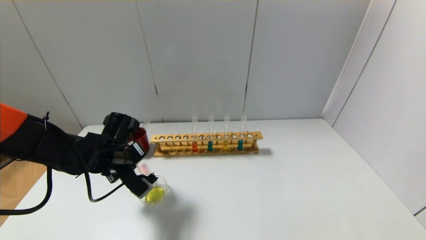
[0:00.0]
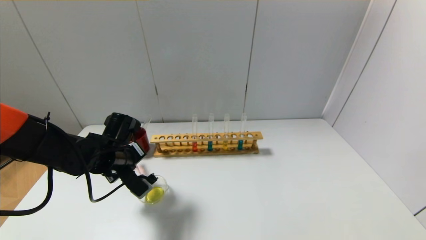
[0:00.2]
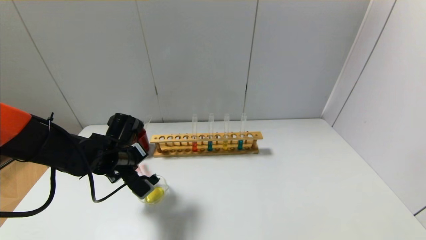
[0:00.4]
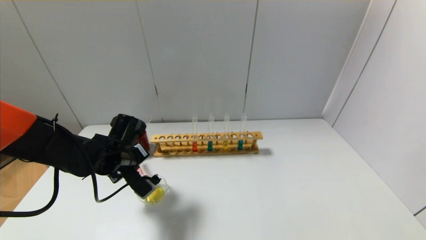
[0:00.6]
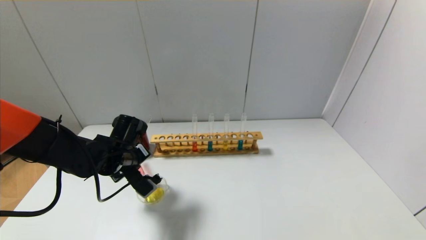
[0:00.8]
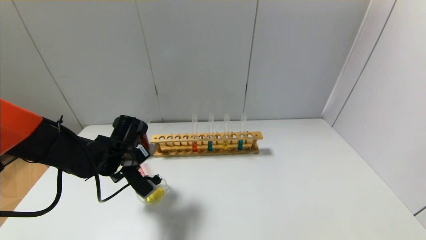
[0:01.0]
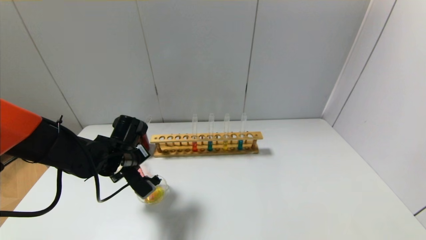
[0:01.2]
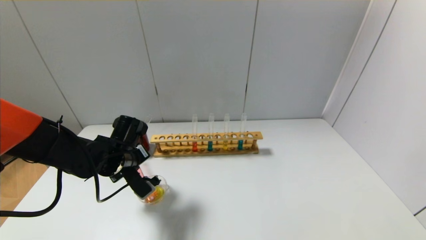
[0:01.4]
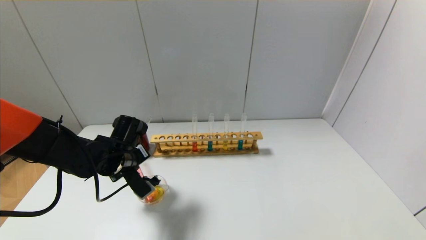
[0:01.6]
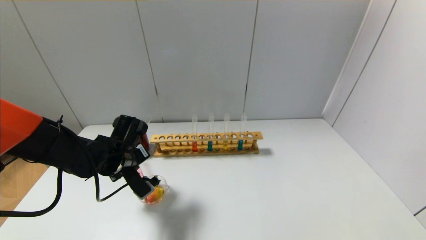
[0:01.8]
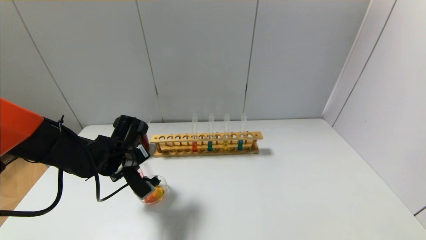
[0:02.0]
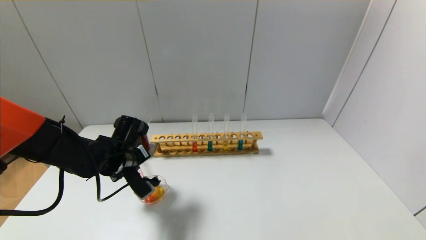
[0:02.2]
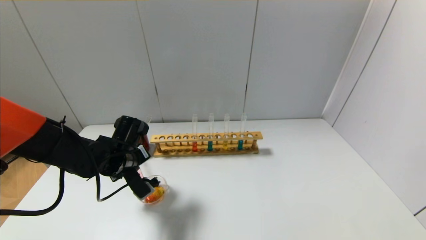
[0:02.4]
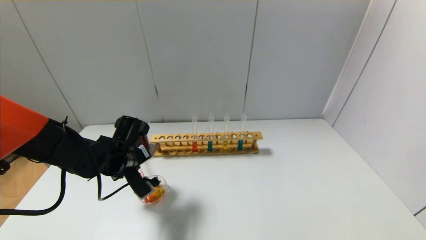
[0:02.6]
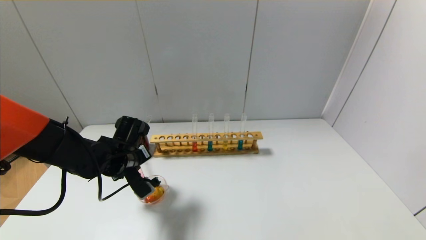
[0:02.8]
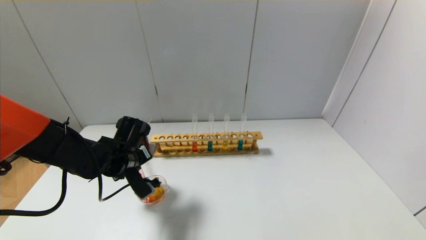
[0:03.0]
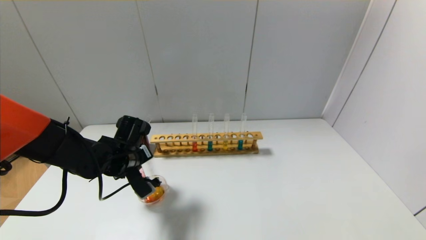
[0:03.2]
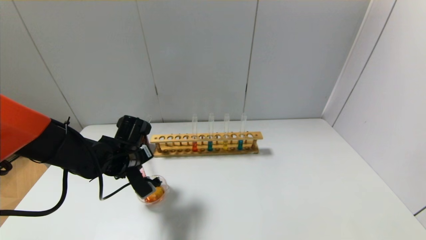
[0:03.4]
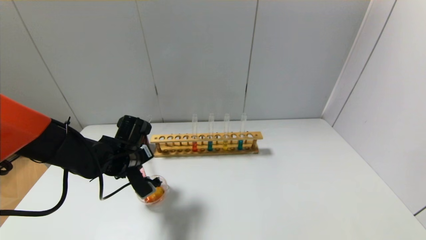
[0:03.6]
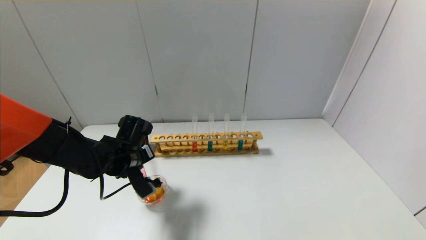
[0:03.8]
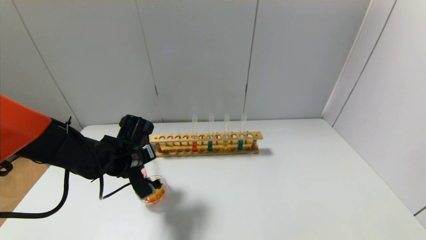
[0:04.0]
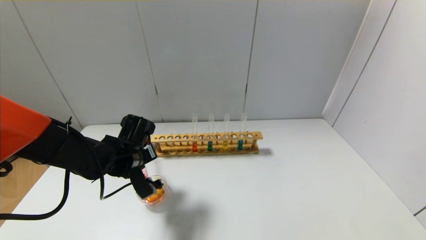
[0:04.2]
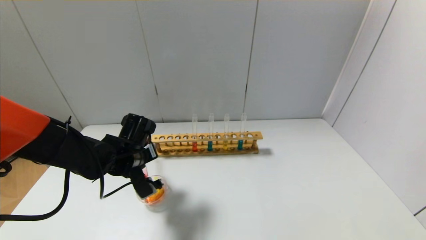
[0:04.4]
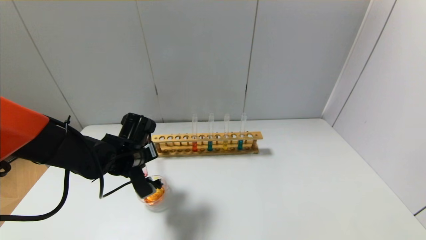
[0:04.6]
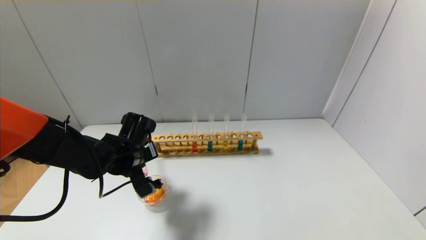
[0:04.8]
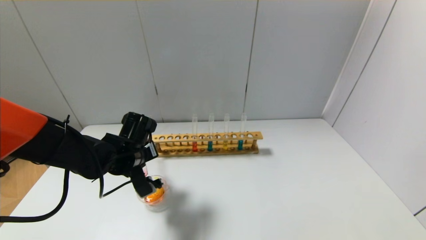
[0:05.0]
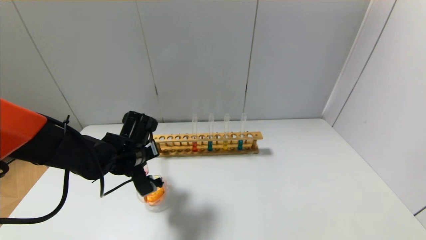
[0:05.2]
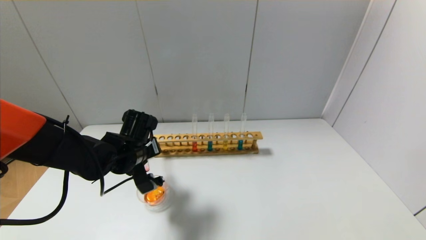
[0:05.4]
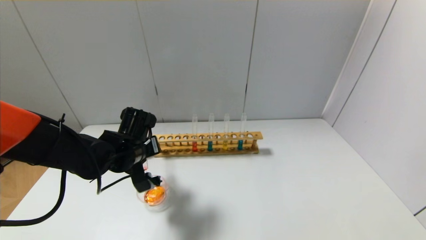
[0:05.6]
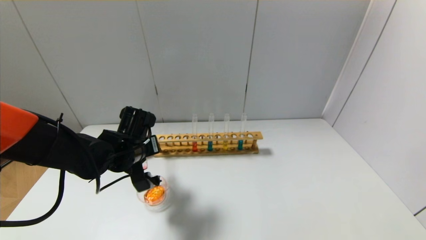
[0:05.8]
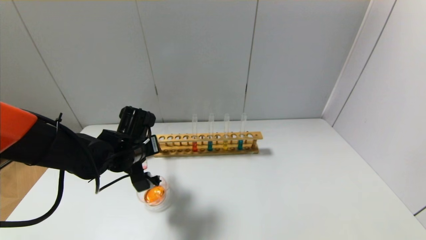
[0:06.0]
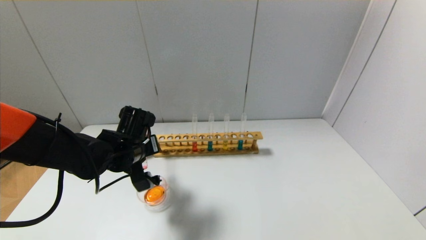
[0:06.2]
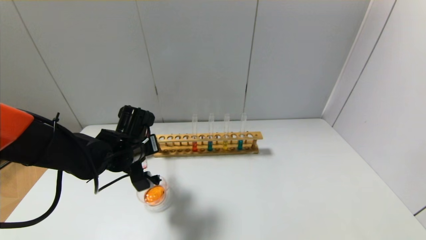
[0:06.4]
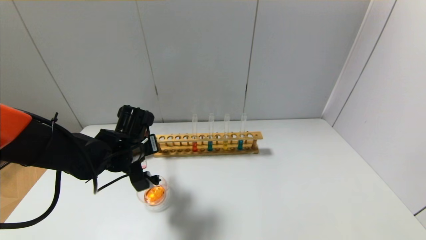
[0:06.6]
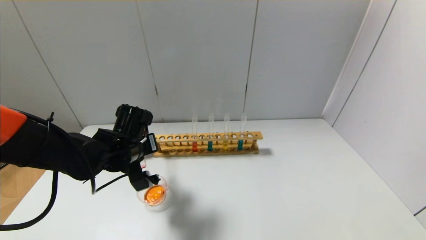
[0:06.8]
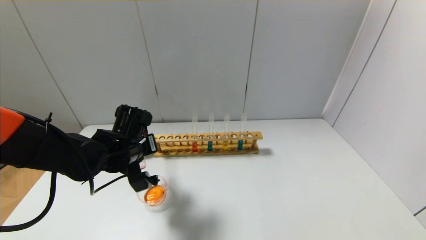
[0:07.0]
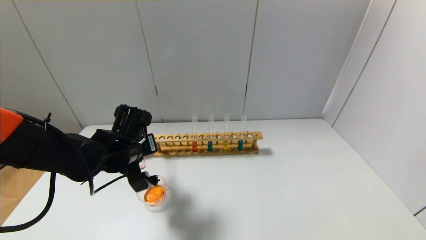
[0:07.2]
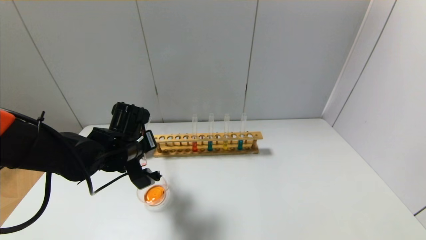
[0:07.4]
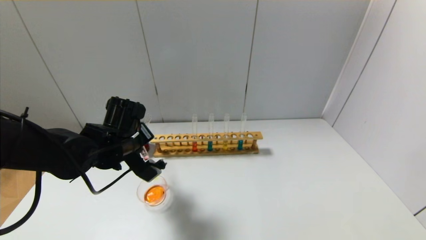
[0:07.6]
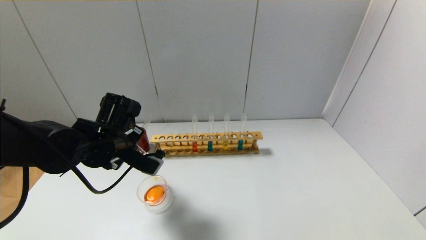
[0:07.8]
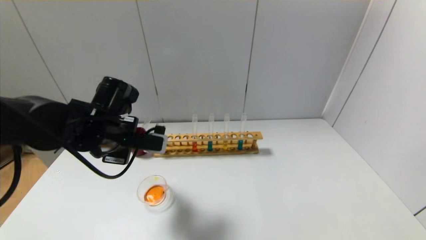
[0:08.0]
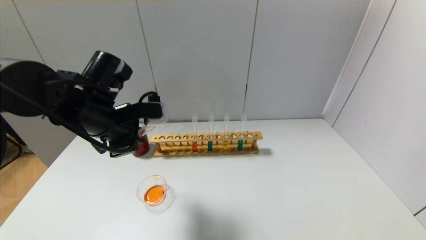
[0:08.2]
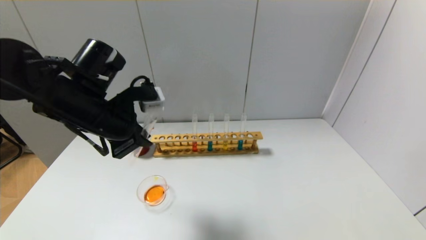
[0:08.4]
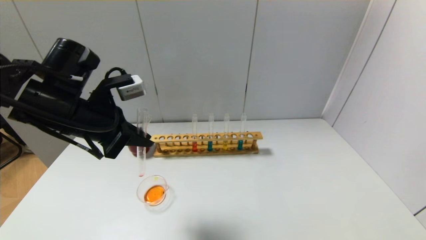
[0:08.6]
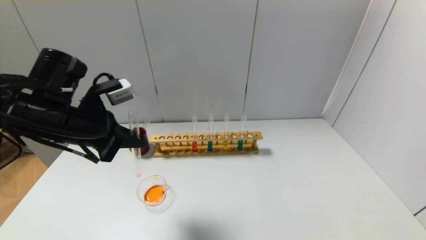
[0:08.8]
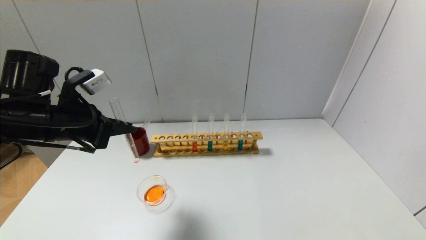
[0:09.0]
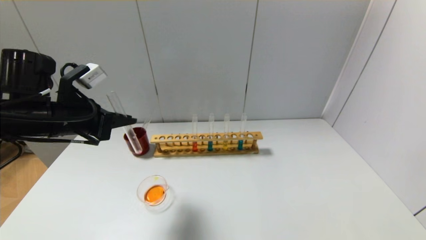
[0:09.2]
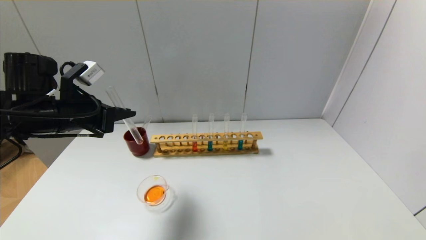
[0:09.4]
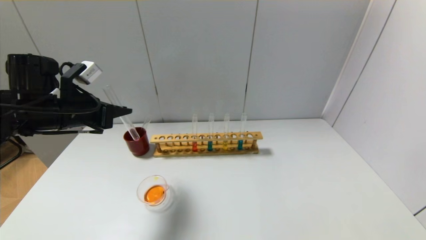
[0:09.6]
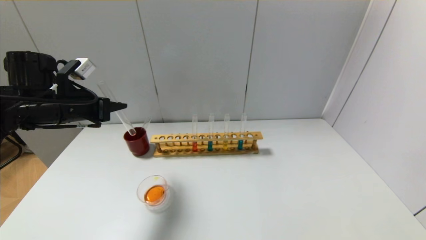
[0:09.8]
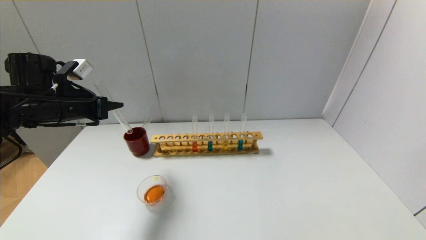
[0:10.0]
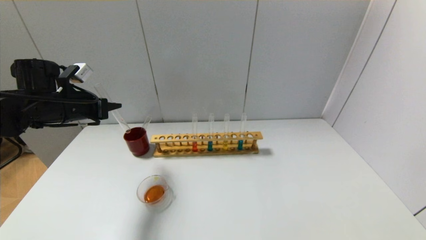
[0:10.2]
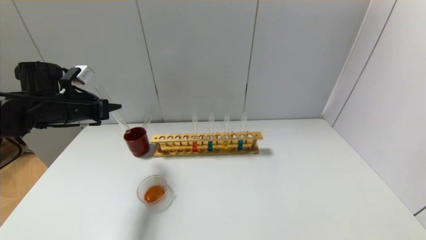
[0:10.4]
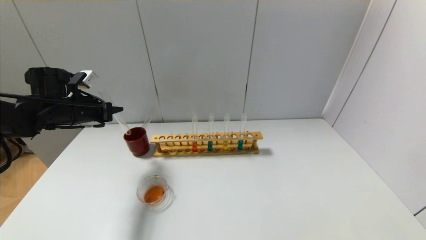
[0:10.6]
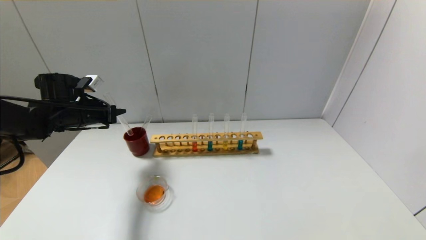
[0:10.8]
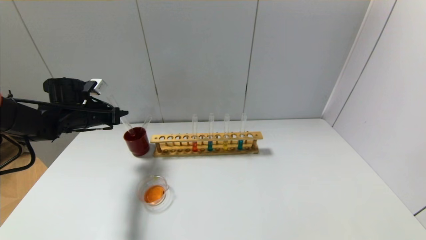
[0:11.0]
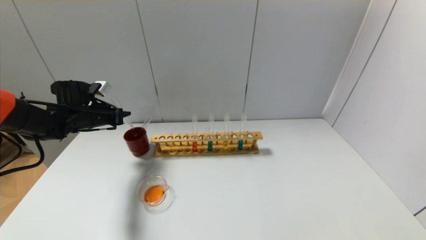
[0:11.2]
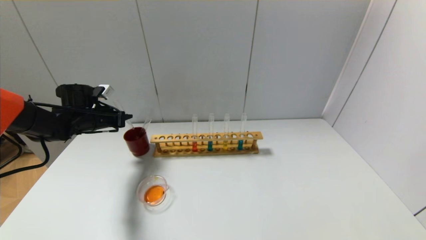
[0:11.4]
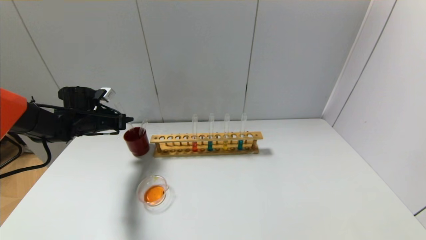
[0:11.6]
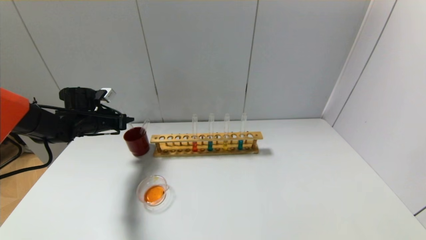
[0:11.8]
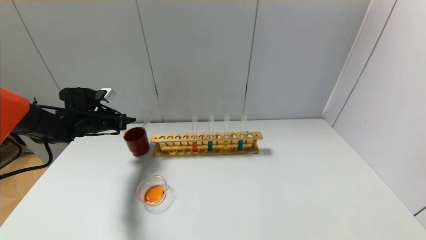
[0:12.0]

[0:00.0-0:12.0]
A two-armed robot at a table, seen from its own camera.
Step, 0:00.0 to 0:08.0: Pour the red reagent into the graduated cylinder with the left gripper.
Step, 0:08.2 to 0:12.0: Place the test tube into the brown cup with the left gripper.
0:00.0 to 0:01.6: There are only small adjustments of the grippers.
0:01.6 to 0:03.0: Both grippers stay about where they are.
0:03.0 to 0:06.0: The grippers stay close to where they were, moving slightly.
0:07.6 to 0:09.0: The left gripper travels upward and to the left by approximately 10 cm.
0:09.0 to 0:10.4: The left gripper goes about 10 cm forward and to the left.
0:10.4 to 0:12.0: The left gripper travels downward and forward by roughly 10 cm, and opens its fingers.

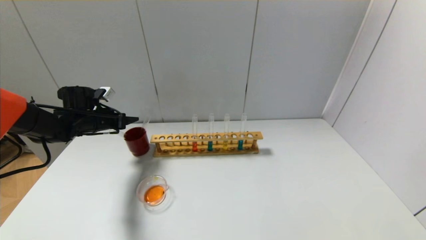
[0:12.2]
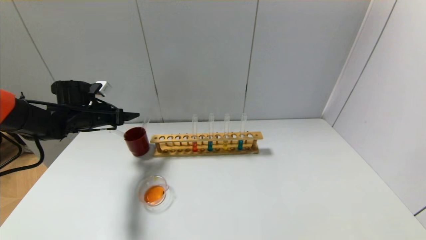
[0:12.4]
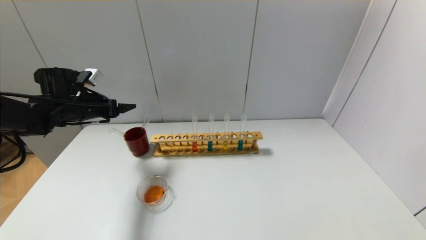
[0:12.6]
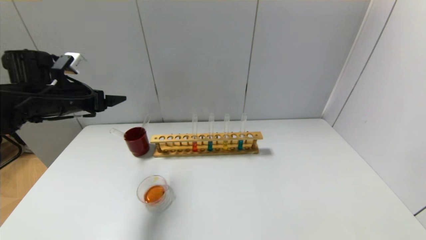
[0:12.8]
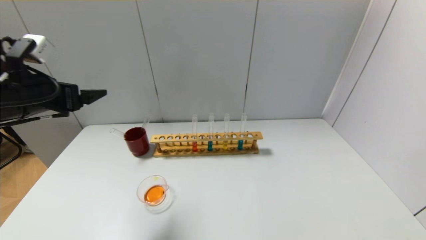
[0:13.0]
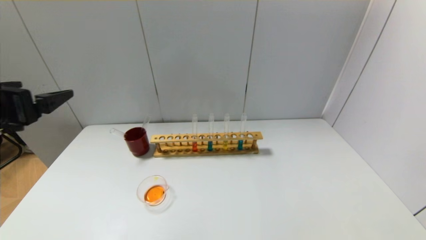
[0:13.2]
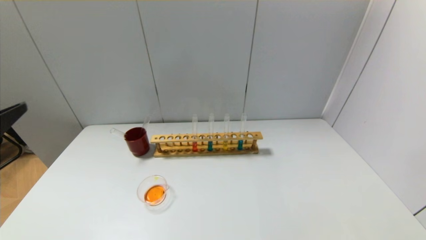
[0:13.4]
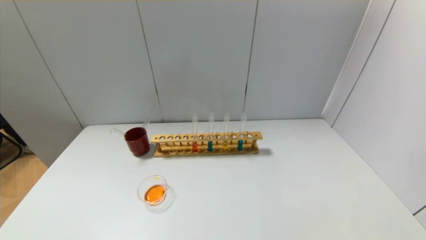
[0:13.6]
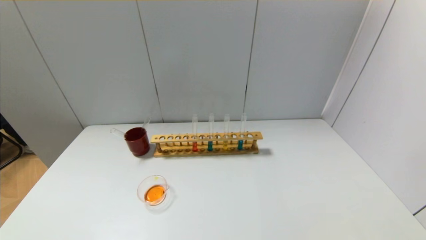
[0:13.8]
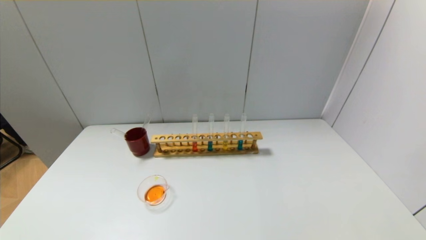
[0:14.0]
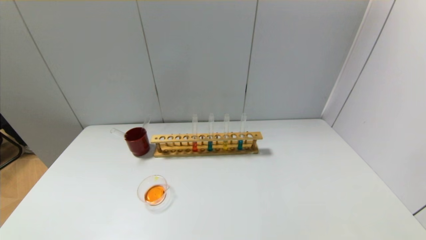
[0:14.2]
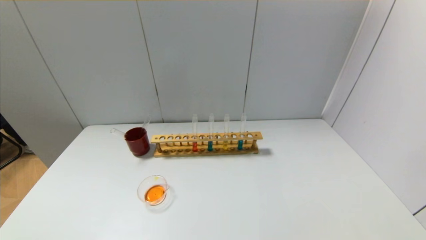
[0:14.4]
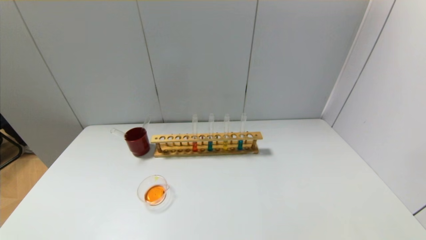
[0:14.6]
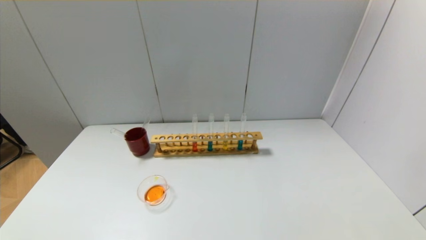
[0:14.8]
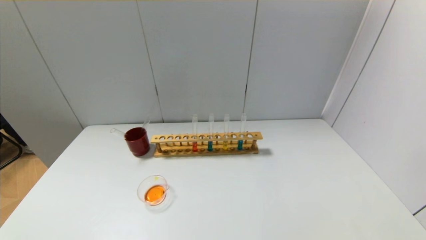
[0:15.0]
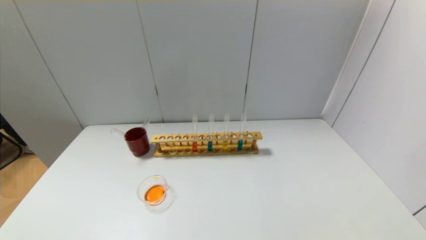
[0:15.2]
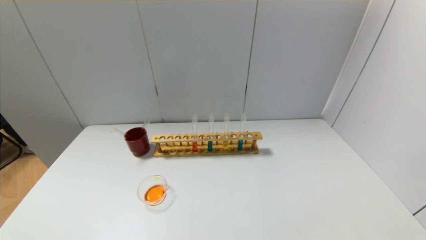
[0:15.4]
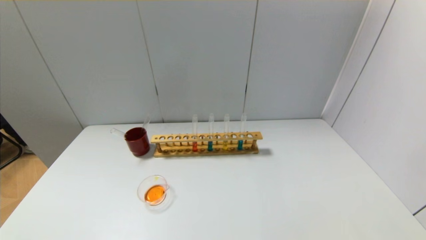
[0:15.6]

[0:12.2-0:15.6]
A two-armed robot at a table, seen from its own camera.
0:12.2 to 0:13.8: The left gripper is displaced backward by about 40 cm.
